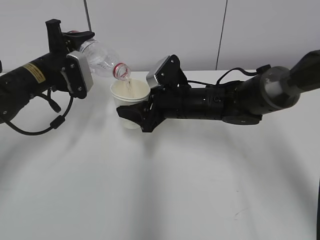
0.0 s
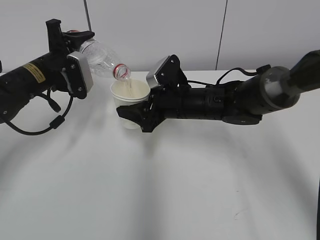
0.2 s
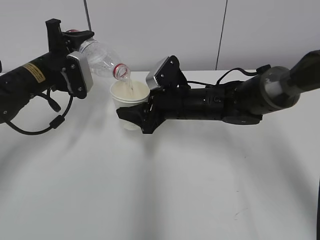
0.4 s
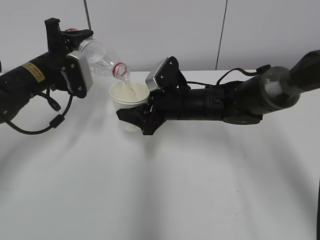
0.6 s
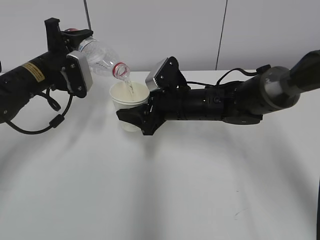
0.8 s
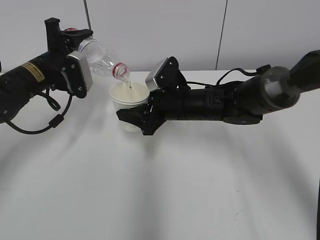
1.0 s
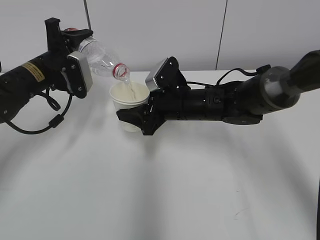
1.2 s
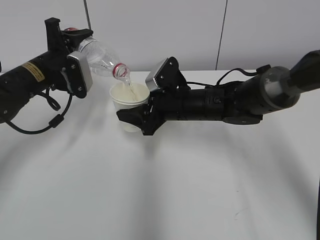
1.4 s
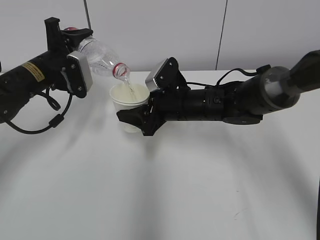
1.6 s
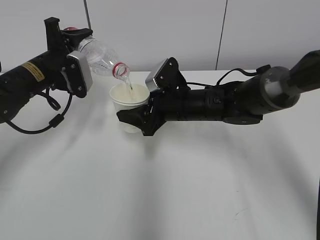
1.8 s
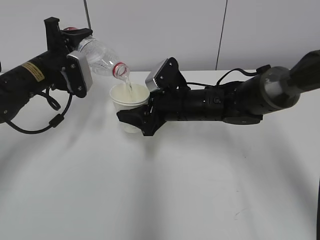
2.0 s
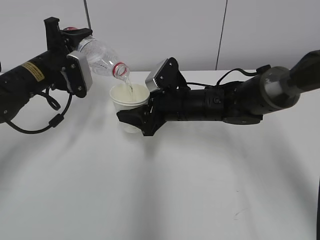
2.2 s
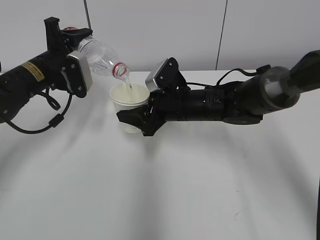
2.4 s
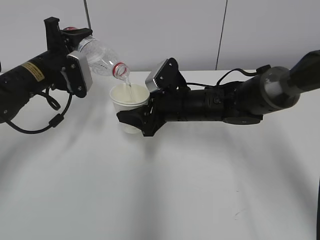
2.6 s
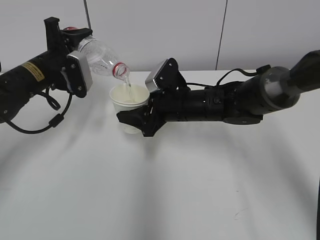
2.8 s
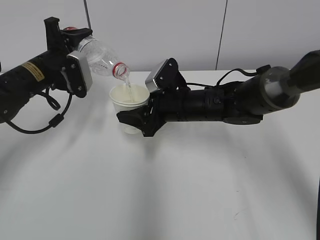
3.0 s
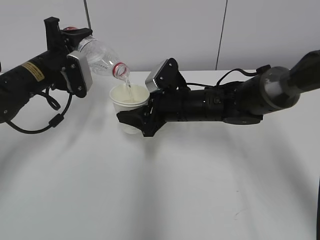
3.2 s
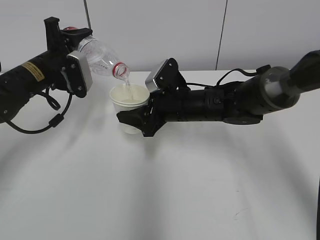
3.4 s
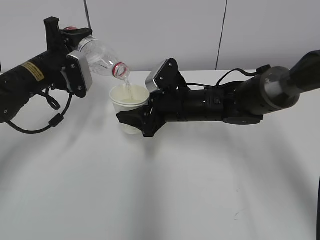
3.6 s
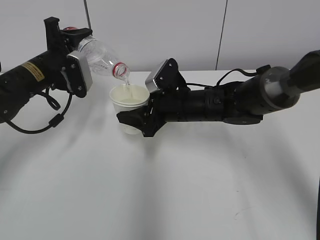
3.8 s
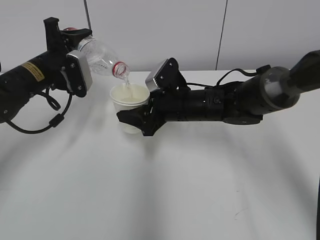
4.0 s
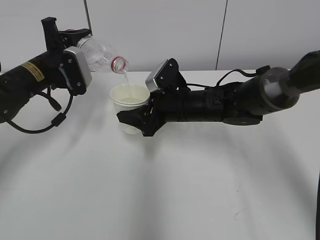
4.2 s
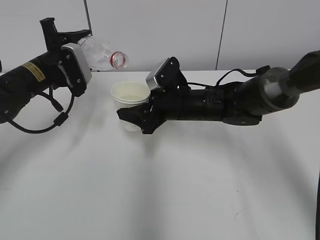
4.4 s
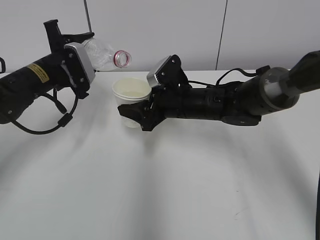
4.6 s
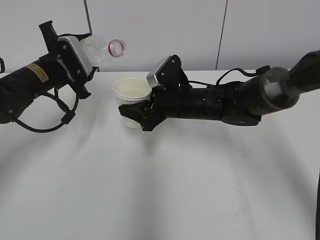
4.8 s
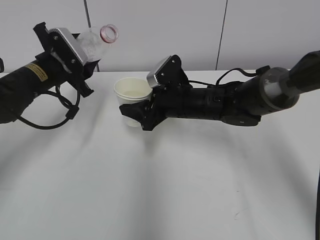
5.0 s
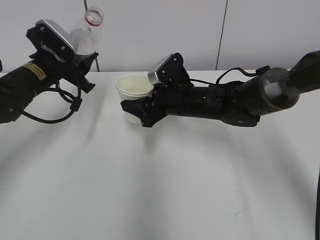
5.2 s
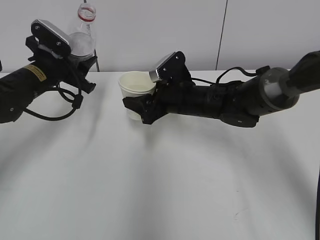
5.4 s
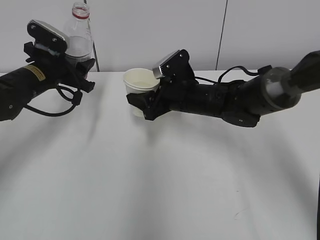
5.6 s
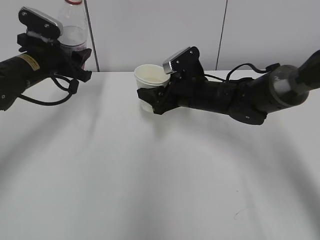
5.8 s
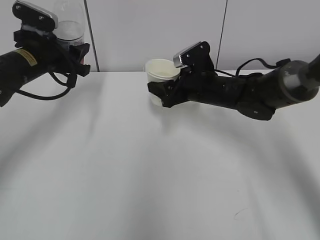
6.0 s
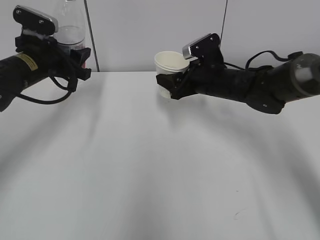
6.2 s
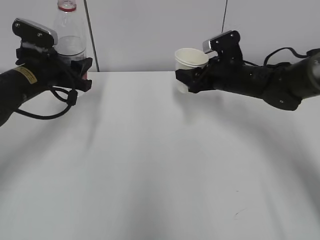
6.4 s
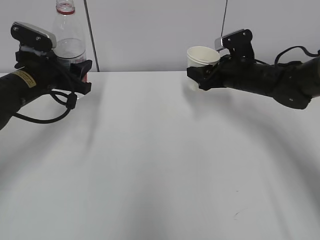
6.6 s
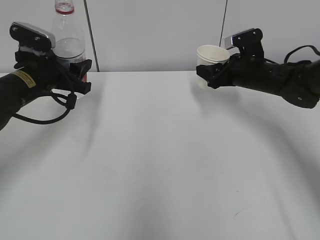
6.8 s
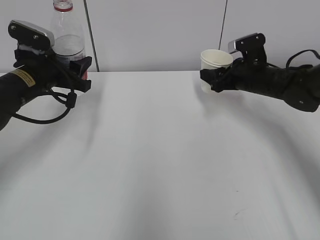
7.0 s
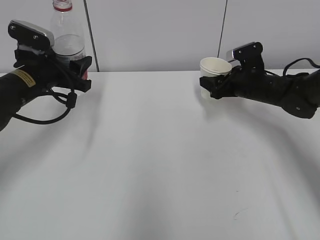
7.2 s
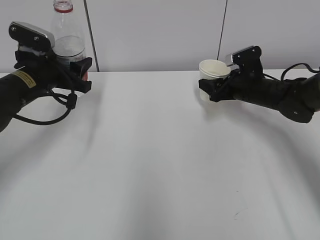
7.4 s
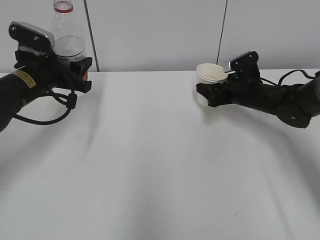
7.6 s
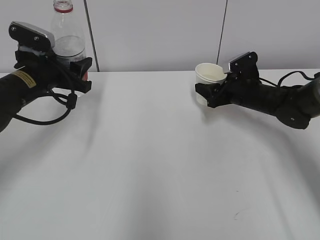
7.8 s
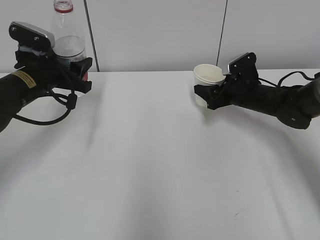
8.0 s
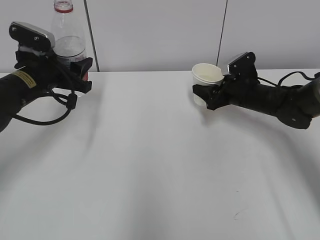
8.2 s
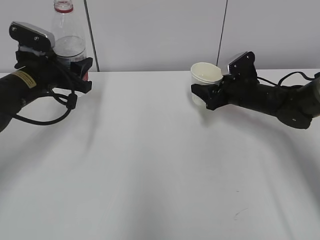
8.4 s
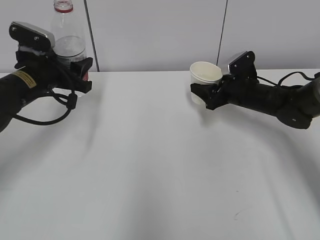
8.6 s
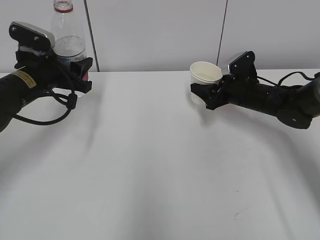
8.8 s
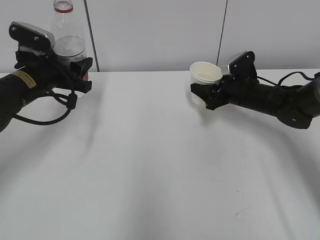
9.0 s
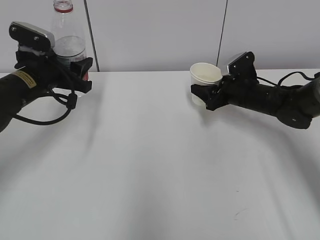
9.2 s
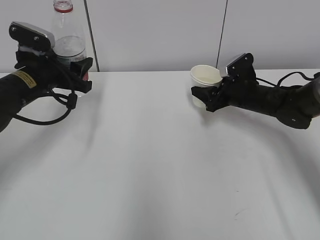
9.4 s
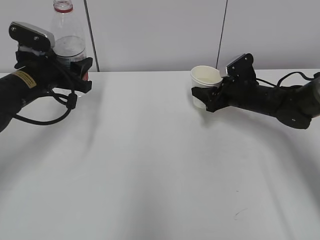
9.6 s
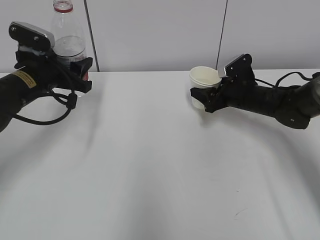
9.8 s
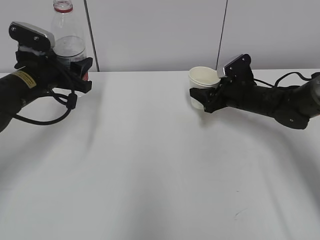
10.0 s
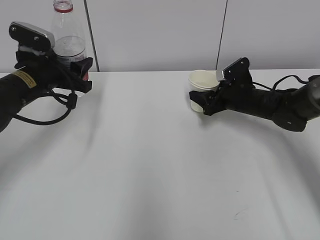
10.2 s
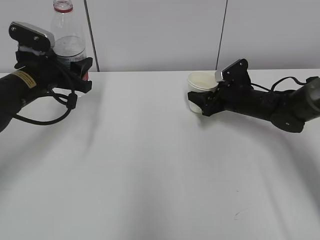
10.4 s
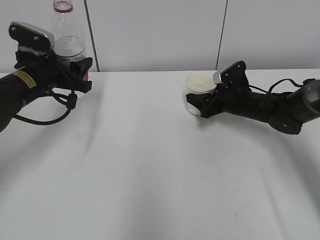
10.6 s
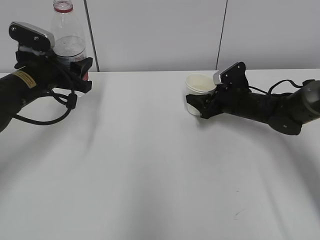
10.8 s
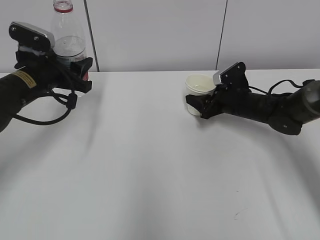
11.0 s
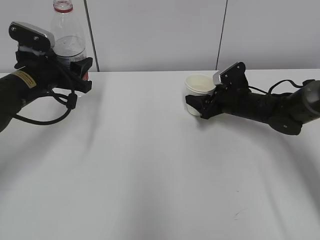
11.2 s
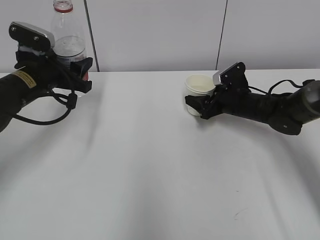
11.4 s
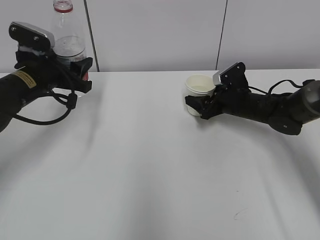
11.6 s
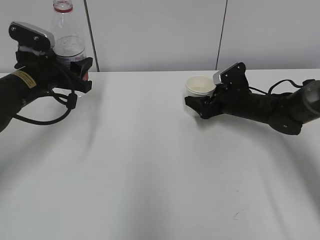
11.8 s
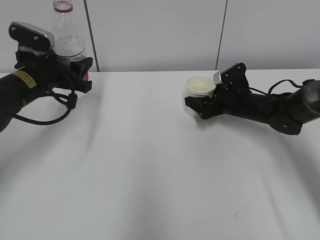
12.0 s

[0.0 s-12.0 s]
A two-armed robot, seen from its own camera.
Step, 0.0 to 1.2 s: Collect water with the left hand.
Step, 1.4 to 6.6 s: Place the paper cup with the right hand.
0.0 to 3.0 s: Both grippers stay about where they are.
3.0 to 4.4 s: The grippers make only small movements.
4.4 to 6.0 s: The right gripper shifts by approximately 5 cm.
6.0 to 7.6 s: The right gripper travels to the right by roughly 10 cm.
7.6 to 10.4 s: The grippers stay close to where they were, moving slightly.
10.4 to 12.0 s: The right gripper opens.

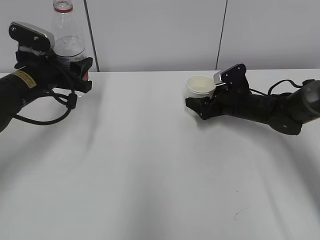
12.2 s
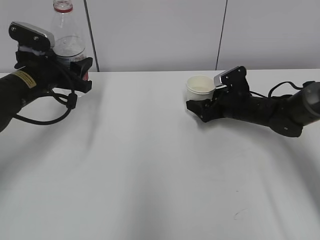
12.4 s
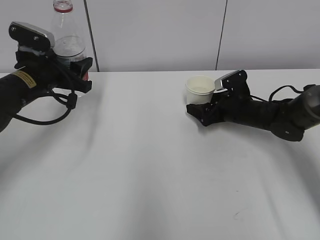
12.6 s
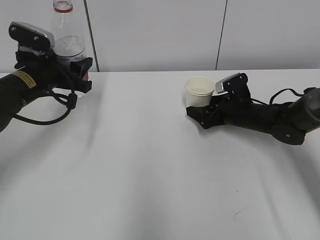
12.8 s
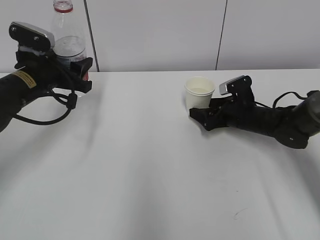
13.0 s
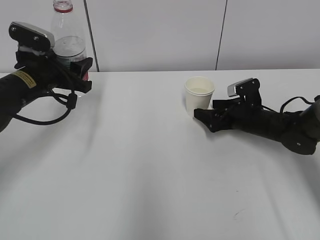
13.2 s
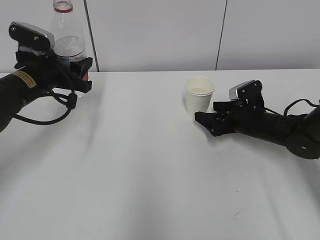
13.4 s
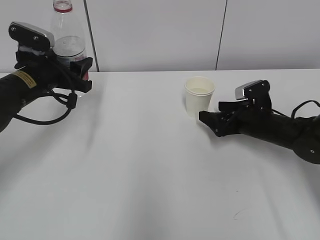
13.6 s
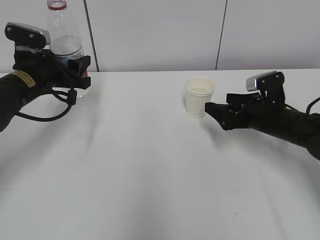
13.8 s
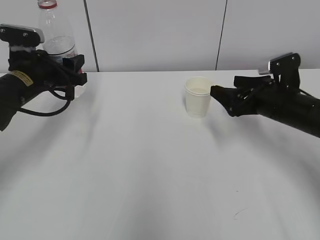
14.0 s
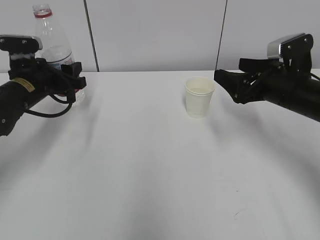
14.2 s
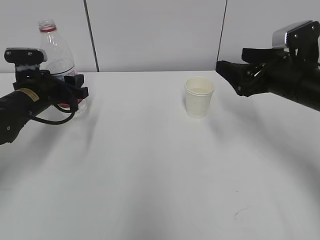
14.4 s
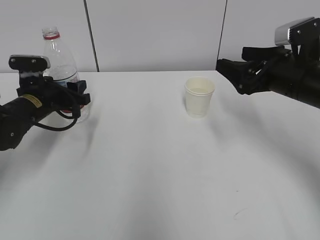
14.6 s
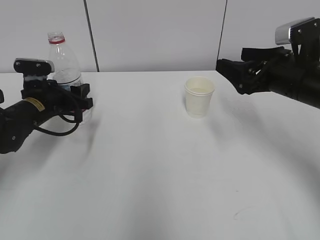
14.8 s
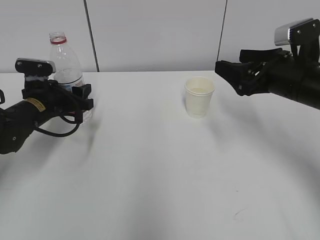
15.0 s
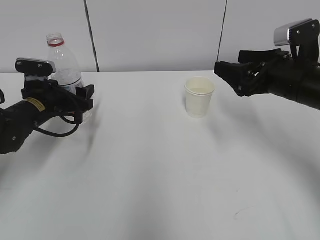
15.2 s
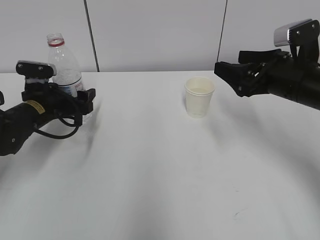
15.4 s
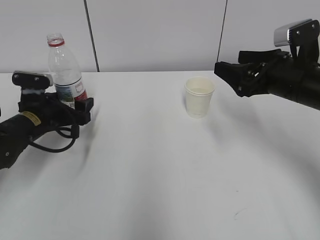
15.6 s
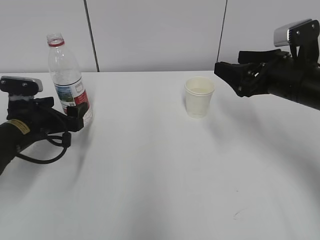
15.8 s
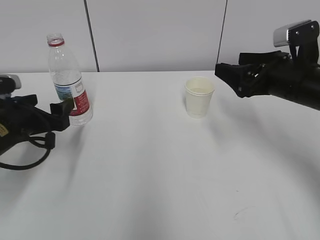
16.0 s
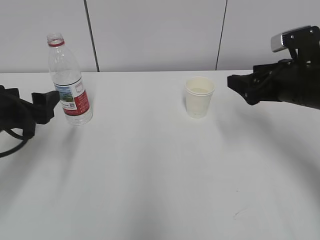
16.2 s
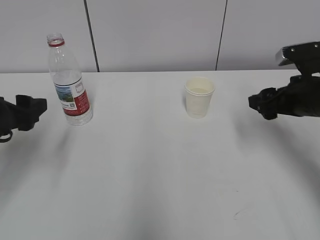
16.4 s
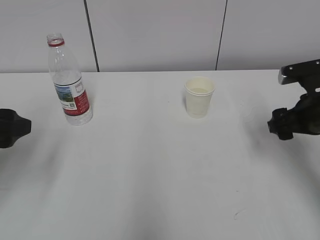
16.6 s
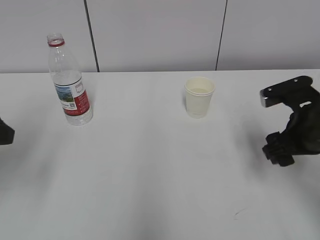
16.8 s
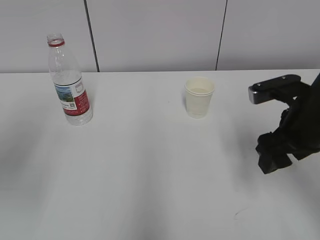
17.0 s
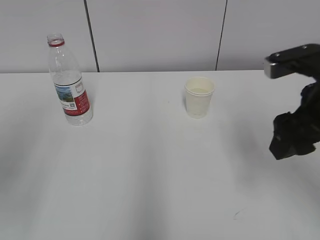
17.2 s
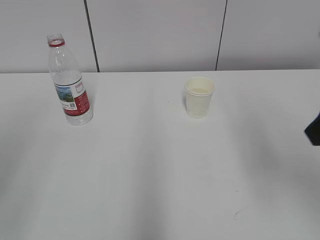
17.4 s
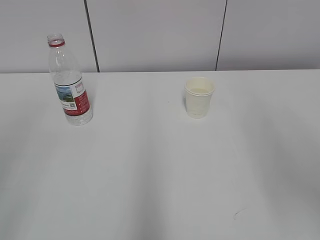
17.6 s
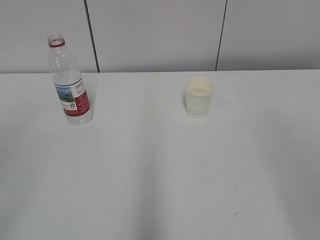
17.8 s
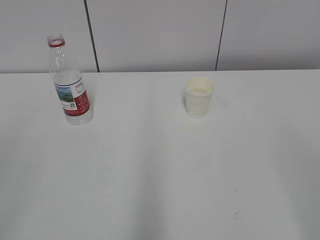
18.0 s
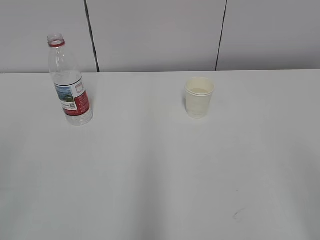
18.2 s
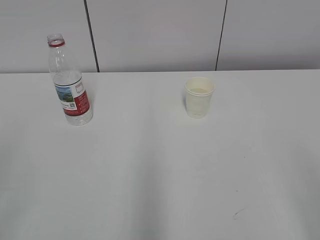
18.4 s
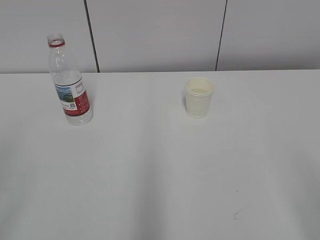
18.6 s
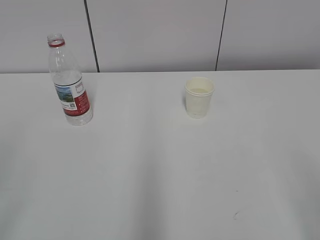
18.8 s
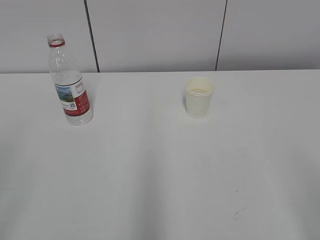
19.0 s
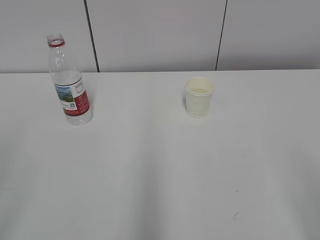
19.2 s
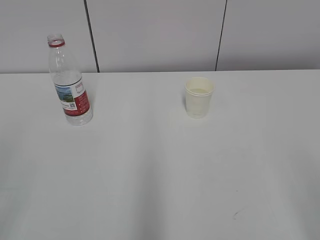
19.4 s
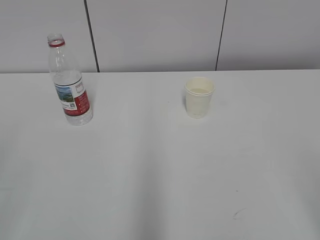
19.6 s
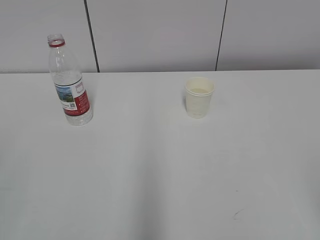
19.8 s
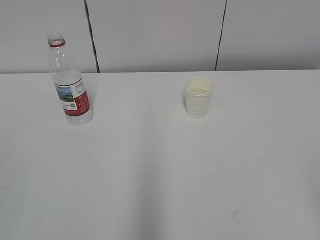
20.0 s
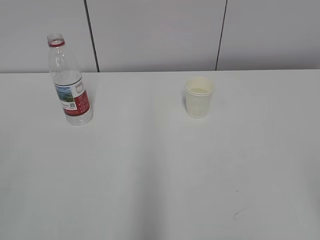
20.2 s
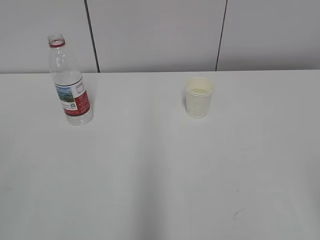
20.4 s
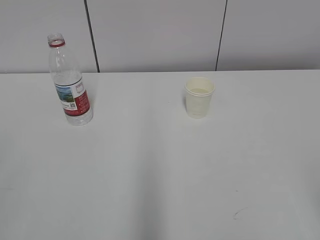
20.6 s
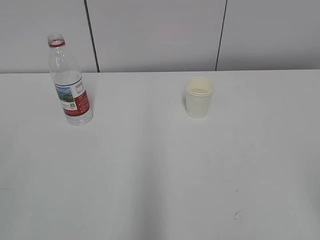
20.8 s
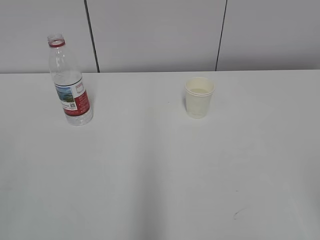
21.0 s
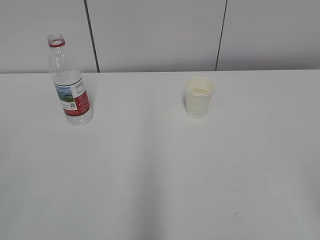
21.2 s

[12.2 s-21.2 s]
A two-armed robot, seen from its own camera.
12.2 to 13.8 s: The right gripper goes approximately 10 cm backward.
13.8 to 15.2 s: The right gripper heads upward, covering about 10 cm. Meanwhile the left gripper is displaced downward by some 5 cm, and opens.
15.2 to 16.6 s: The left gripper moves backward and upward, approximately 20 cm. The right gripper shifts by some 5 cm.
16.6 to 18.2 s: The grippers both shift backward by roughly 25 cm.
19.8 to 21.2 s: Both grippers stay put.

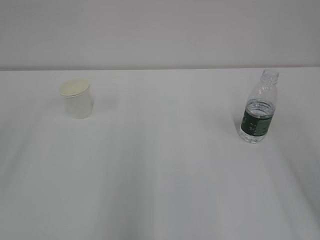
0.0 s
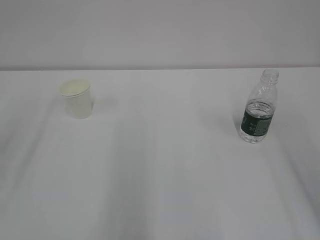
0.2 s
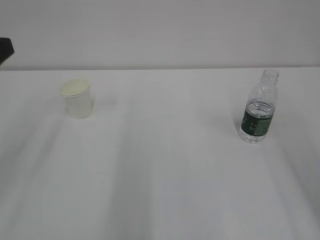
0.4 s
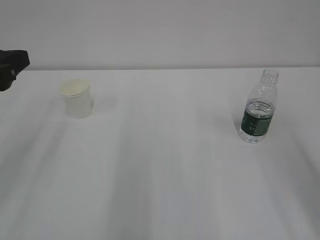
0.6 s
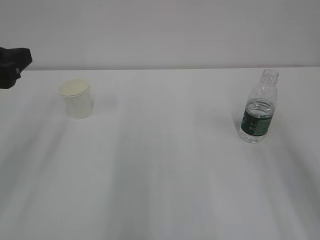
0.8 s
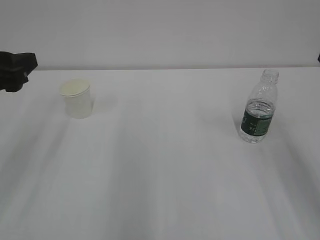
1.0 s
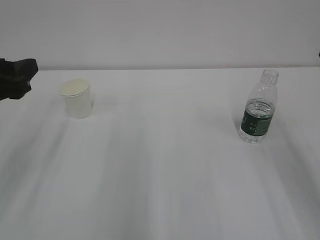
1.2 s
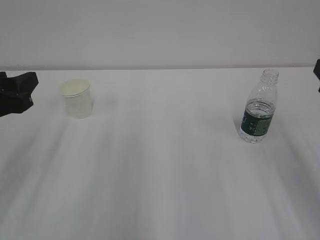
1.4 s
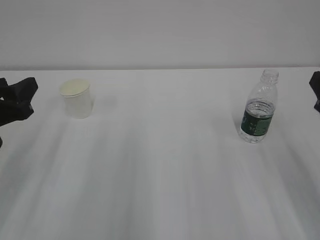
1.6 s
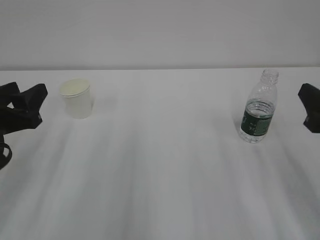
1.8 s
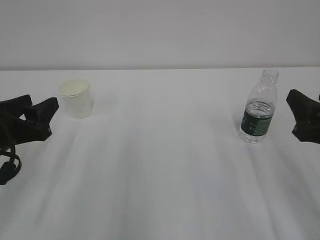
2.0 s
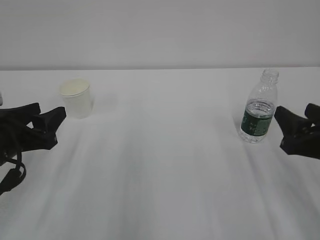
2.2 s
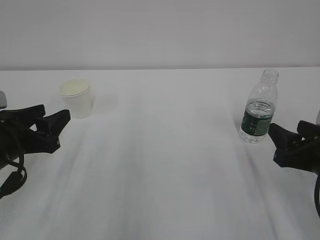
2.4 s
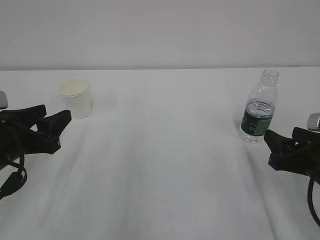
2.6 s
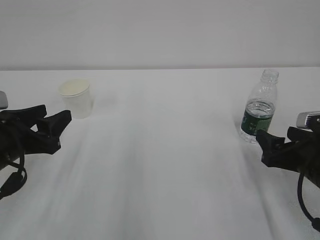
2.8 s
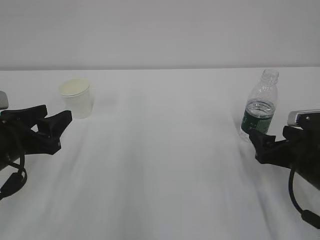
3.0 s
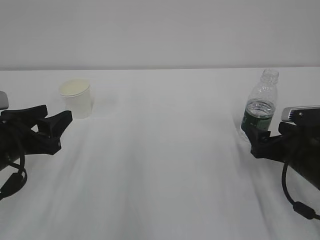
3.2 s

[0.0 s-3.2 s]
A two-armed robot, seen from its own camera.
0.0 to 1.6 s: The left gripper shifts approximately 15 cm downward and forward.
1.6 to 3.2 s: The right gripper heads downward and forward, covering about 15 cm, and opens up.
